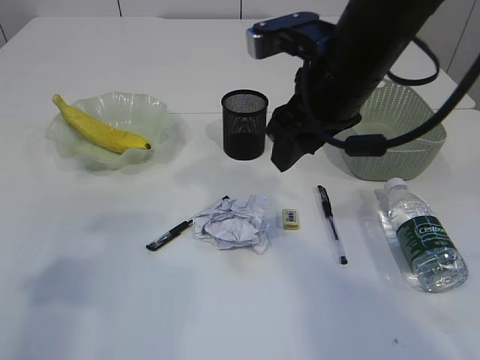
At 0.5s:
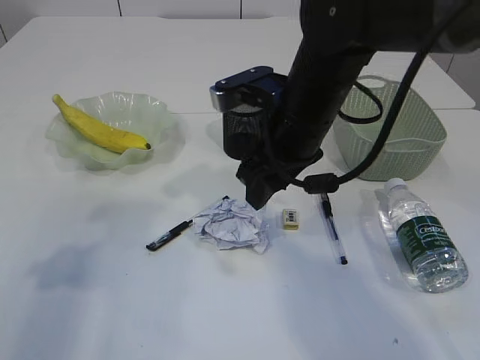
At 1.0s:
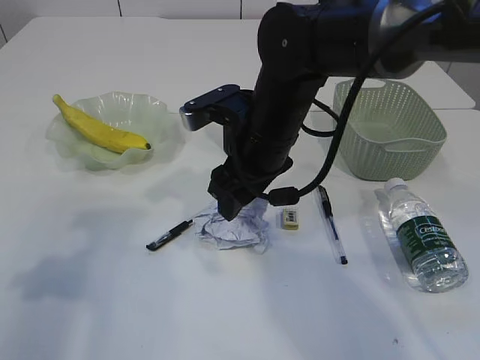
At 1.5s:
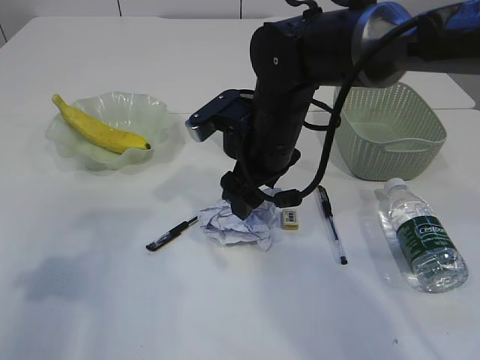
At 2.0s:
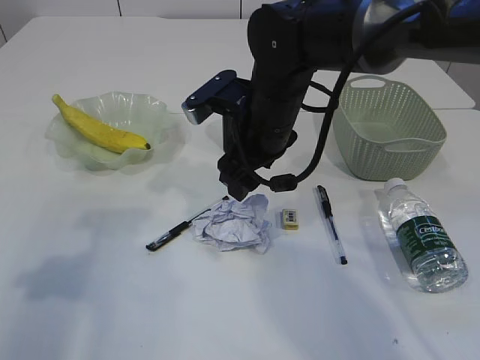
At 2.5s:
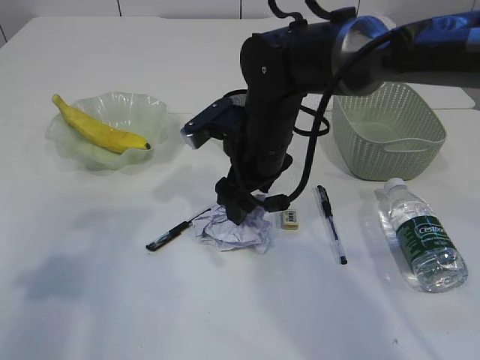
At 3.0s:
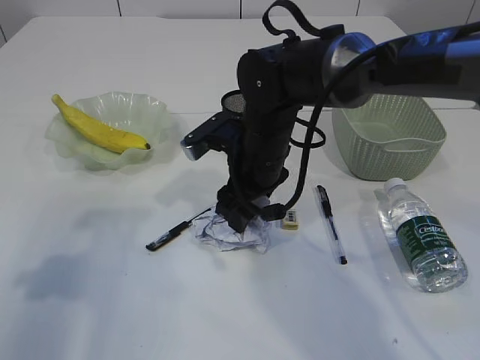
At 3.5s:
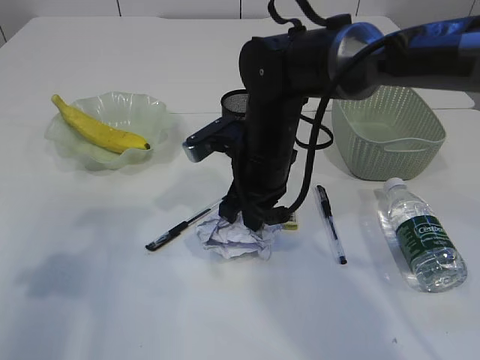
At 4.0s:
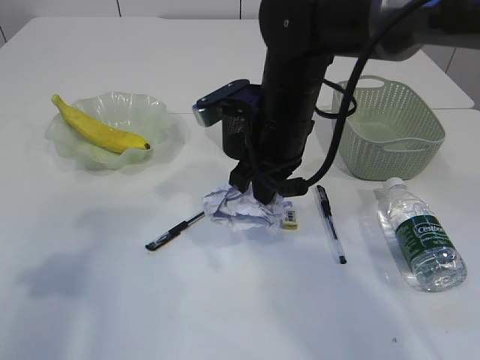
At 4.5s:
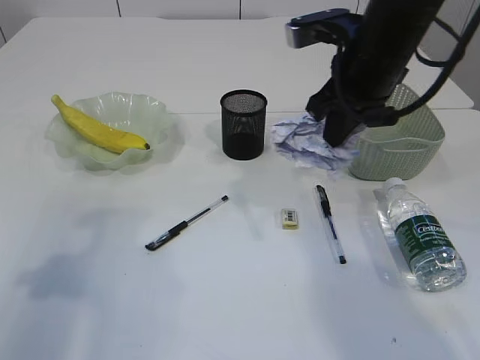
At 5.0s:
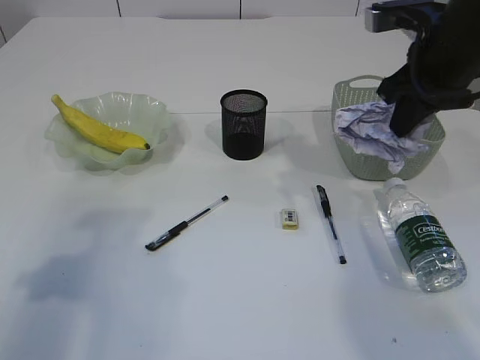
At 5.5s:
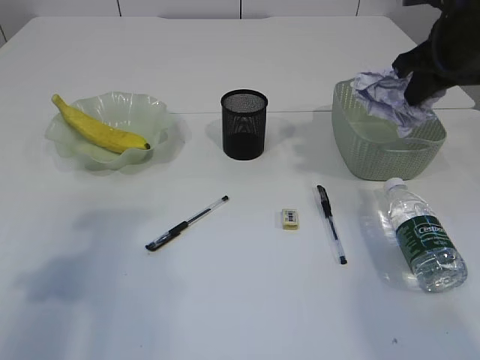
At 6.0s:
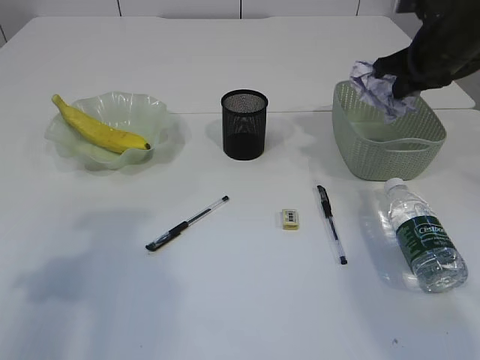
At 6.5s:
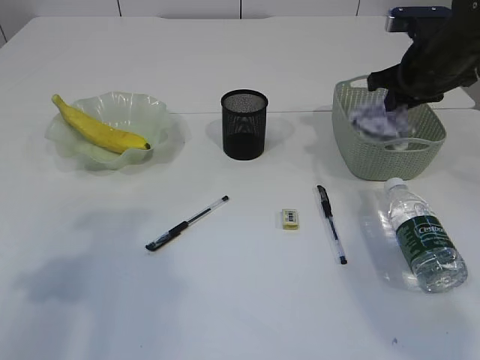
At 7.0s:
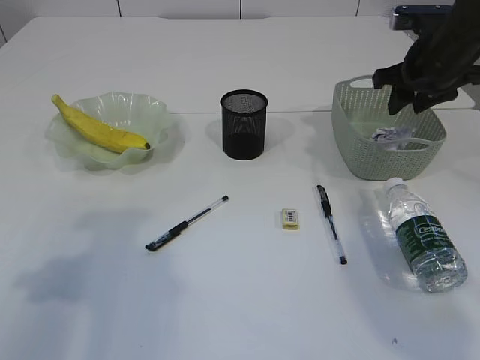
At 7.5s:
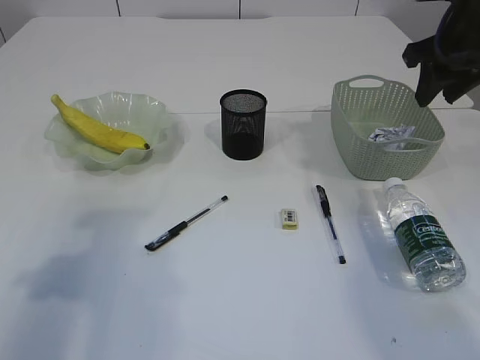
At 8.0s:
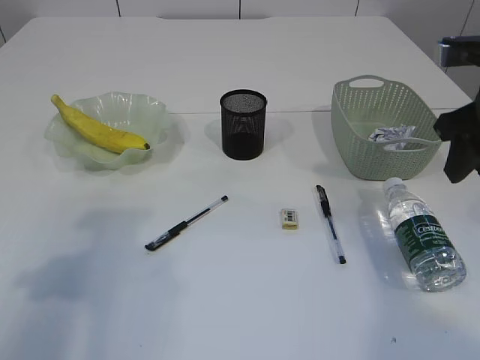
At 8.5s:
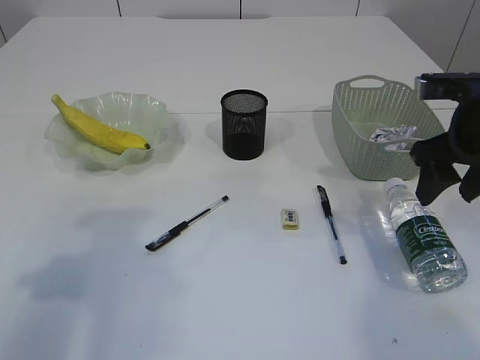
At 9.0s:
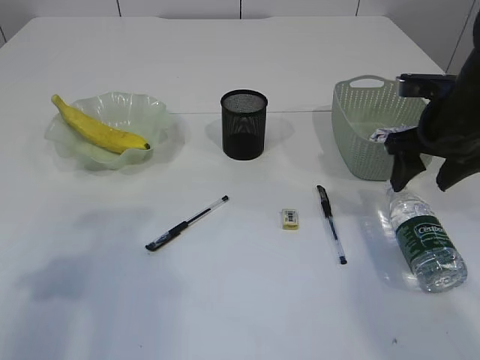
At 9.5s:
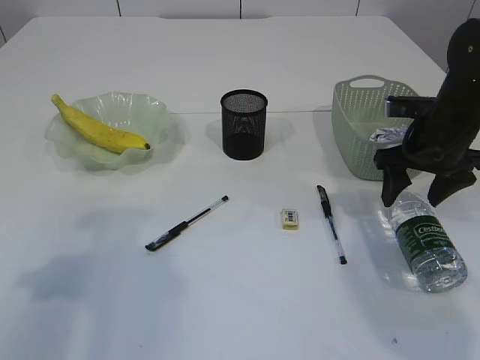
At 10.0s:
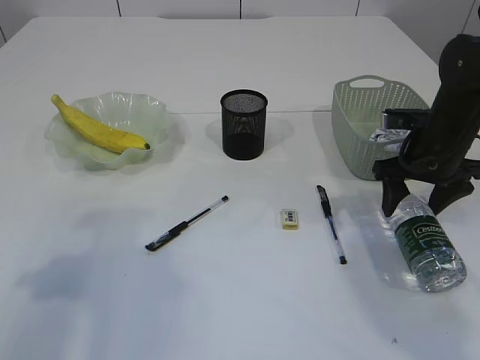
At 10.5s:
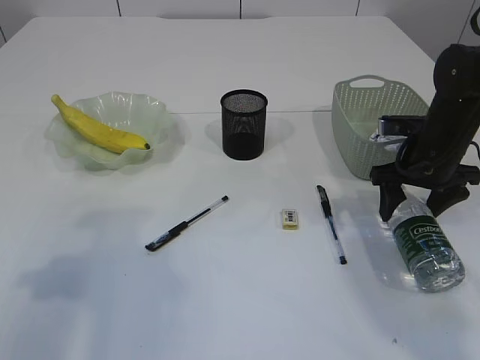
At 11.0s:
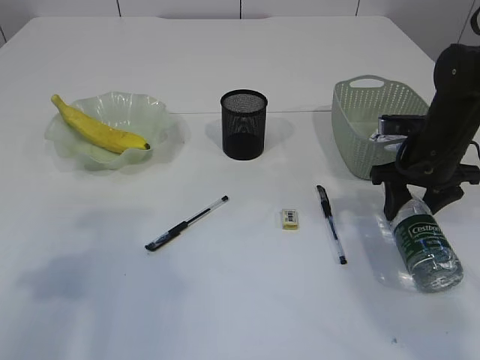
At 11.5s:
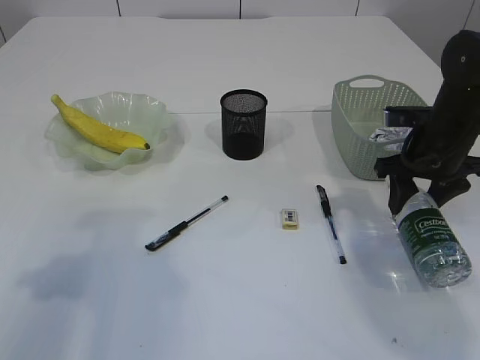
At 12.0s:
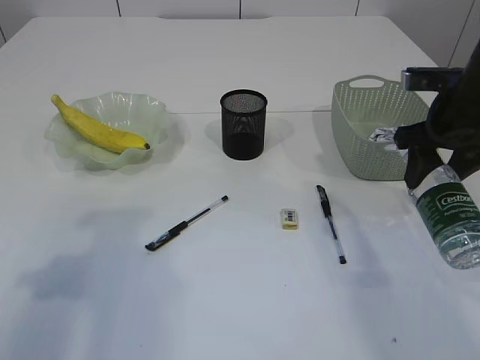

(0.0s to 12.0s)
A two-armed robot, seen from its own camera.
Step, 0.0s - 4.0s: Pick up the waste paper.
Step, 4.5s - 7.0s: Place the waste paper in the basket.
Step, 7.5s - 12.0s: Pick up the bottle with the right arm.
0.0s - 2.0s: The right gripper goes roughly 10 cm downward, to the left and forward.
2.0s - 4.0s: The right gripper closes its fingers.
4.0s - 6.0s: The right gripper is displaced to the right by roughly 20 cm.
6.0s - 8.0s: The right gripper shifts about 10 cm backward, and opens.
8.0s - 10.0s: The right gripper is displaced downward and forward by roughly 15 cm, and opens.
10.0s - 12.0s: The right gripper goes roughly 5 cm upward.

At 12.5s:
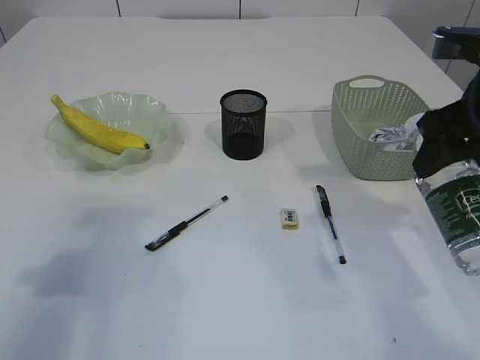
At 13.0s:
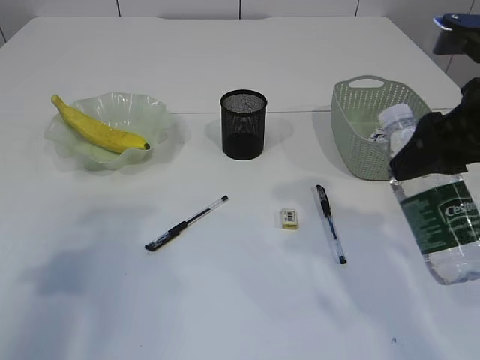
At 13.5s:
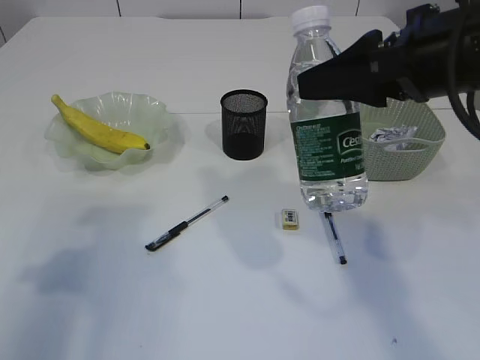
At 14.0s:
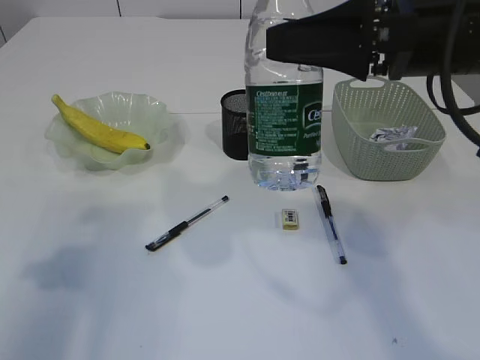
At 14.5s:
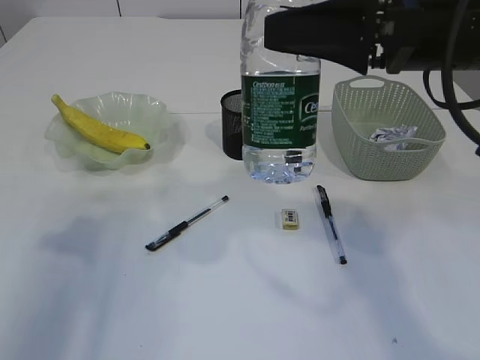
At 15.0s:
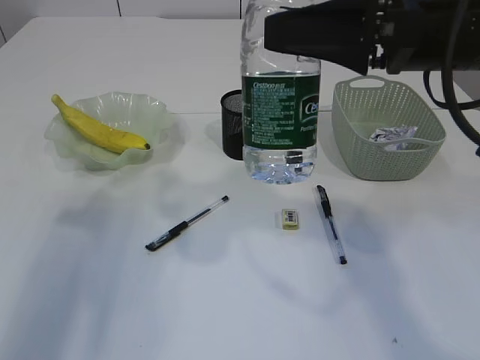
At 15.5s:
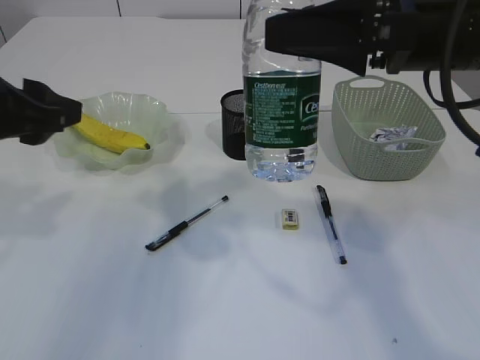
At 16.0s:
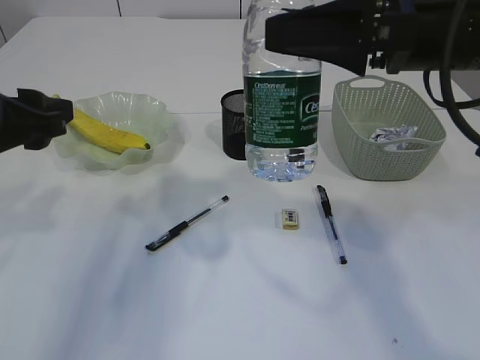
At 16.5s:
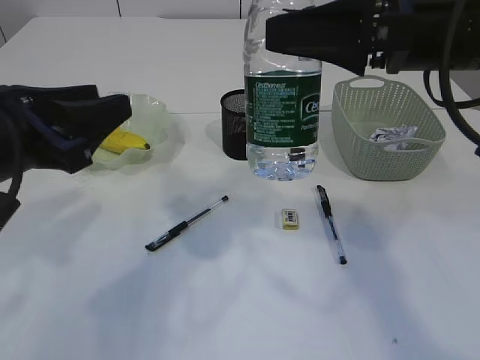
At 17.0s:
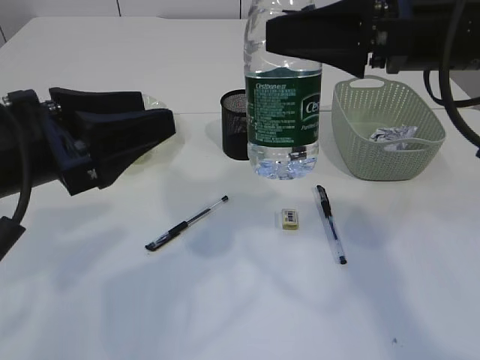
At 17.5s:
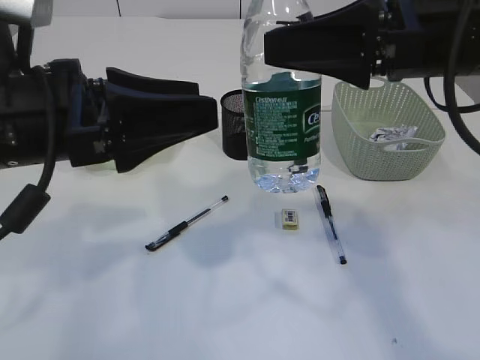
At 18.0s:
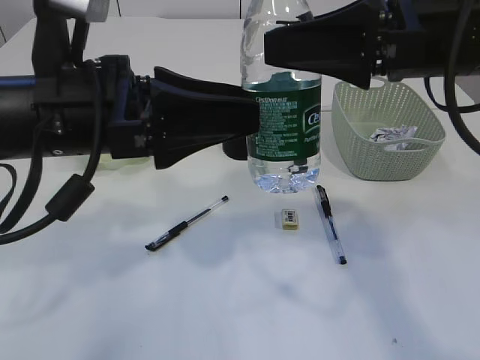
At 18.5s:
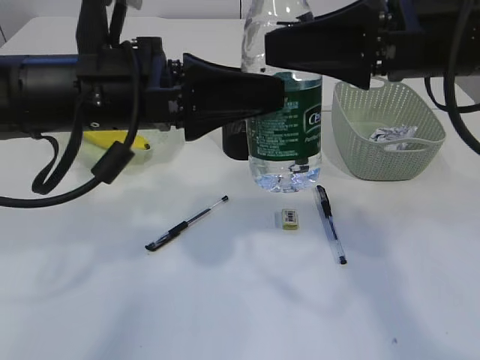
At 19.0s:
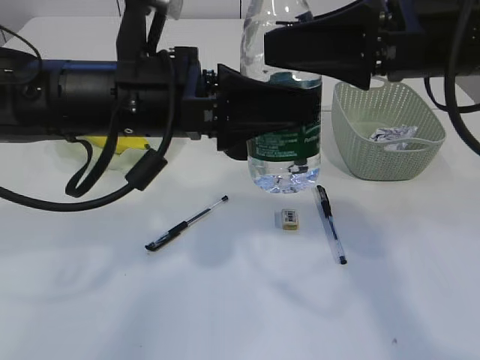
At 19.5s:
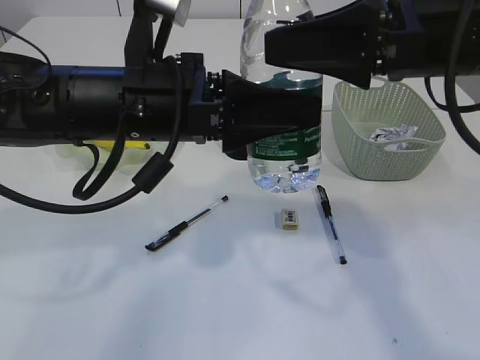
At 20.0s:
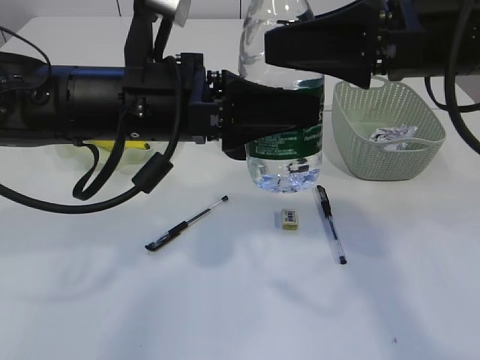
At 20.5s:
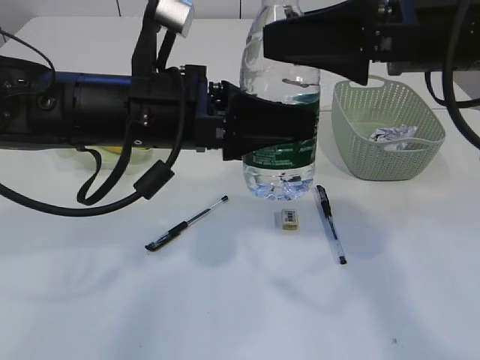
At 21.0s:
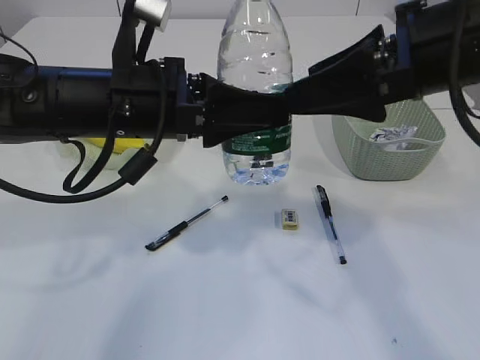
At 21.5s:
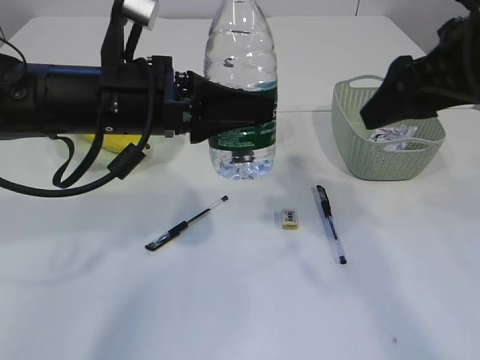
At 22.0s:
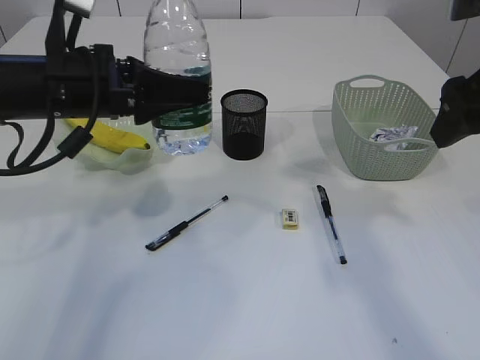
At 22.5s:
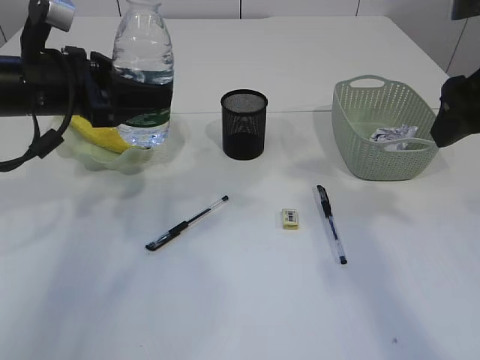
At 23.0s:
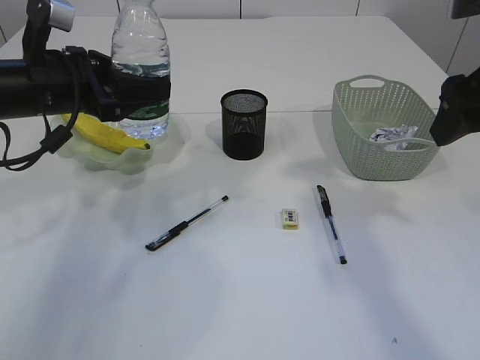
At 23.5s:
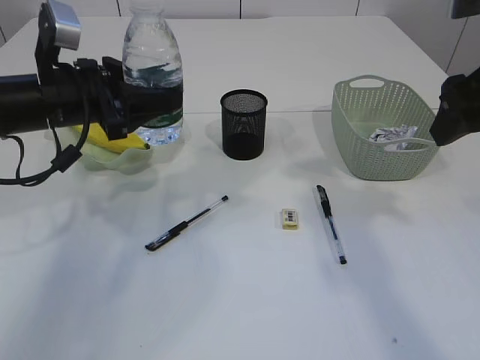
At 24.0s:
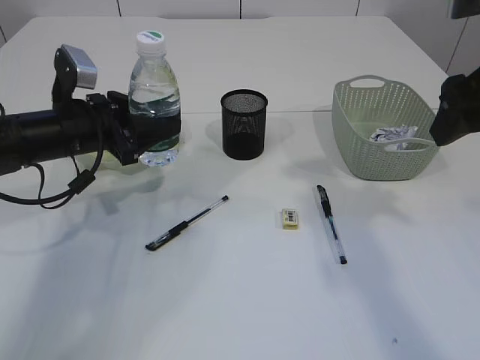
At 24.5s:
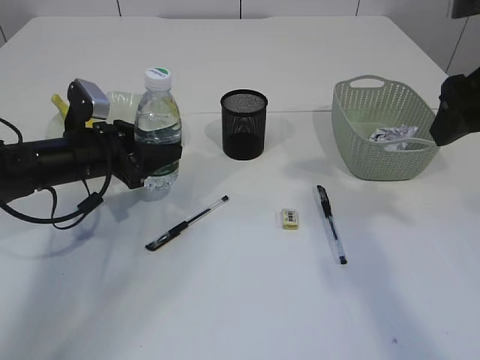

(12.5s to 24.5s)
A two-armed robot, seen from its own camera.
Step, 12.5s - 21.0s: transfer the bottle to the left arm.
12.5s - 14.5s: The right gripper goes some 10 cm to the left and upward.
14.5s - 16.5s: The left gripper travels to the right by approximately 10 cm.
16.5s - 18.5s: The left gripper travels to the right by some 10 cm, and opens up.
18.5s - 20.5s: The left gripper closes its fingers.
20.5s - 22.5s: The right gripper heads to the right, covering roughly 10 cm; the left gripper shifts some 15 cm to the left and forward.
22.5s - 24.5s: The left gripper travels downward by some 10 cm.

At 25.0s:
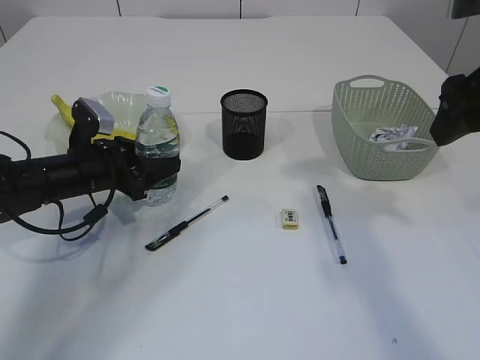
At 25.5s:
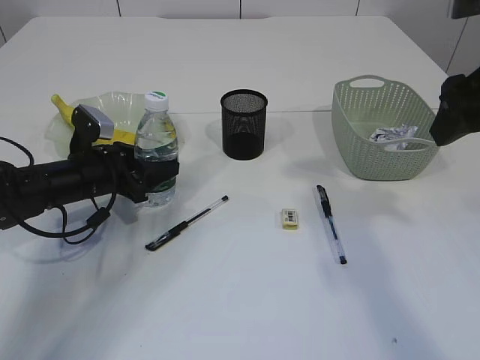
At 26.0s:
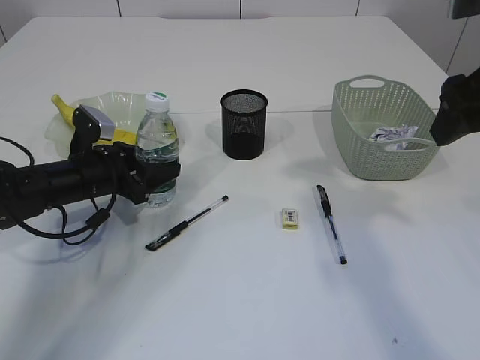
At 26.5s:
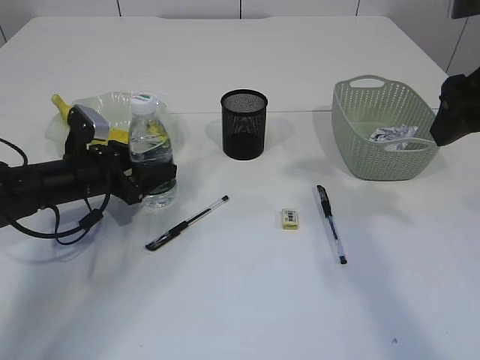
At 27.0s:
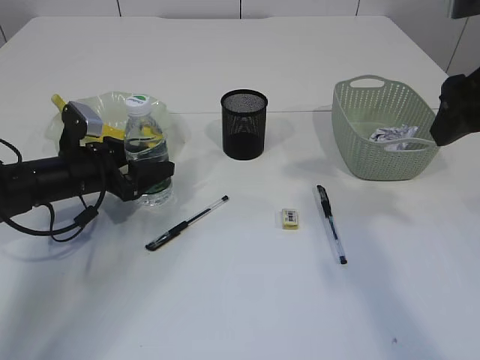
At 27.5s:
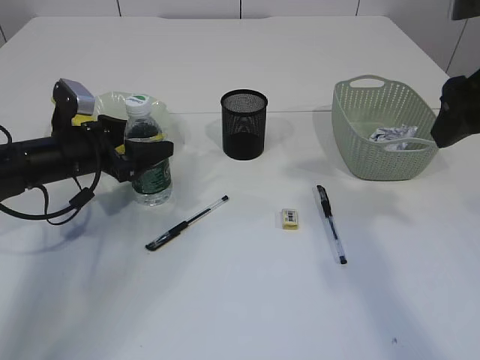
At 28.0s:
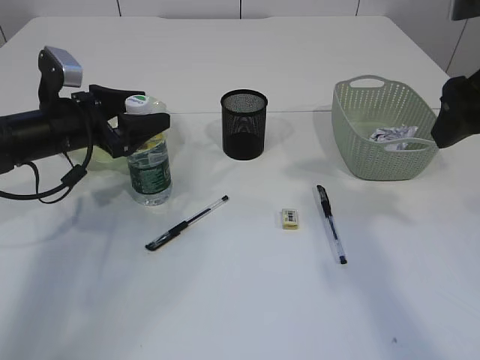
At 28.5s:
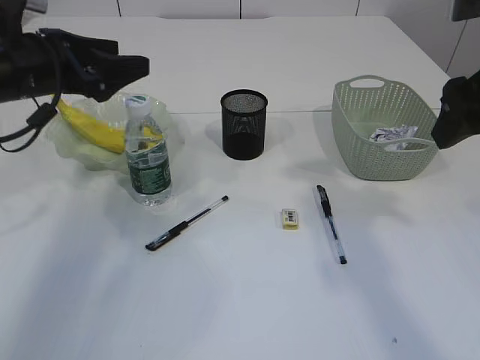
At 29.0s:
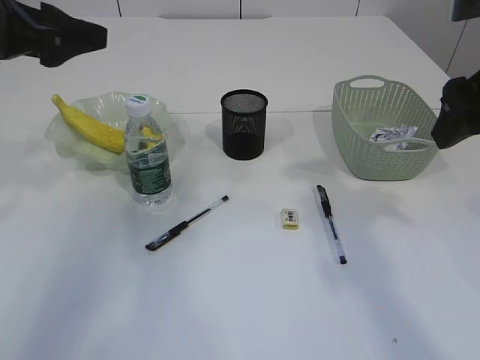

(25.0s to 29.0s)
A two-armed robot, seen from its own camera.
Step, 25.0s - 28.0s: Place the bottle.
25.0s - 27.0s: The left gripper opens up.
27.0s - 29.0s: The left gripper travels upward by some 20 cm.
